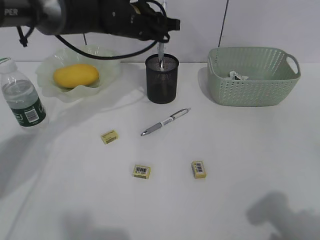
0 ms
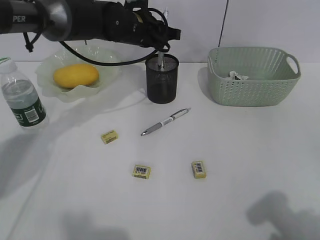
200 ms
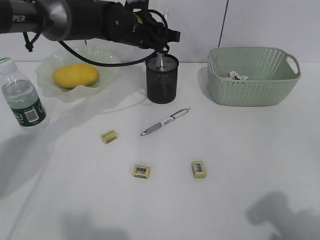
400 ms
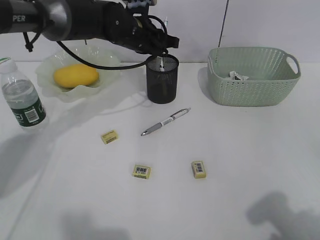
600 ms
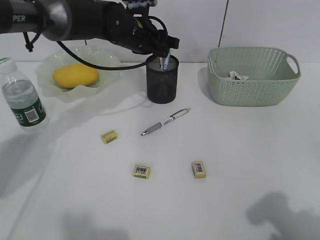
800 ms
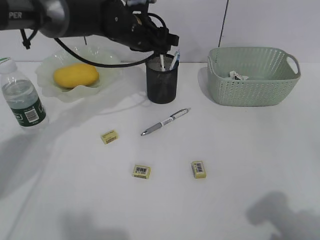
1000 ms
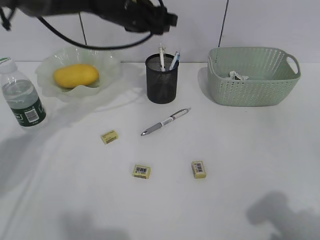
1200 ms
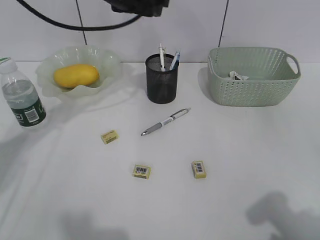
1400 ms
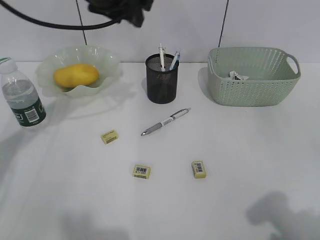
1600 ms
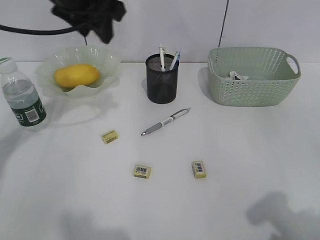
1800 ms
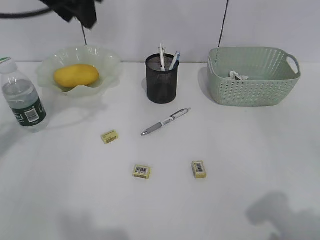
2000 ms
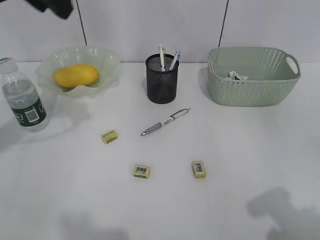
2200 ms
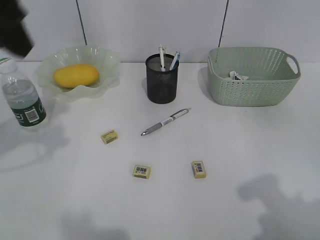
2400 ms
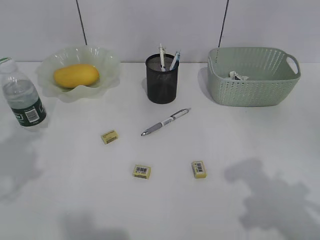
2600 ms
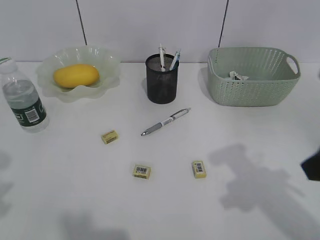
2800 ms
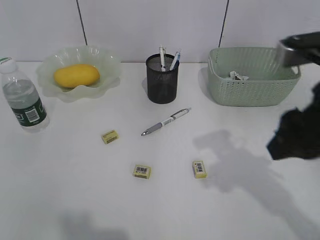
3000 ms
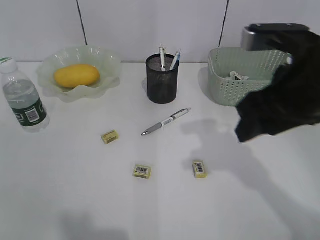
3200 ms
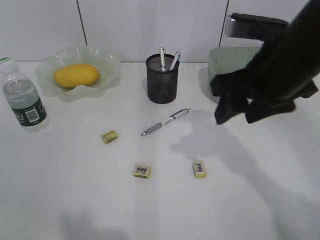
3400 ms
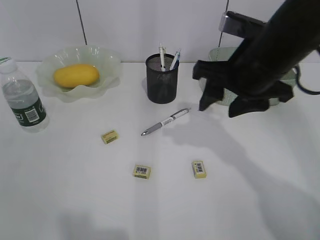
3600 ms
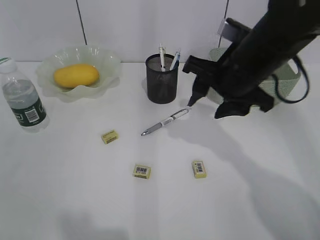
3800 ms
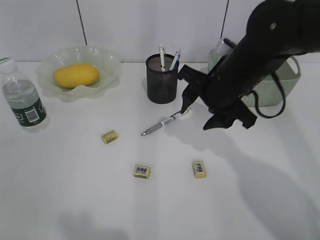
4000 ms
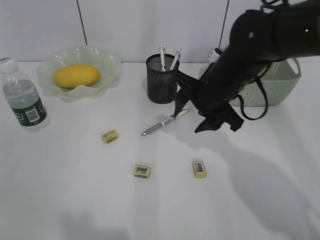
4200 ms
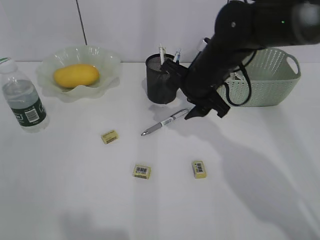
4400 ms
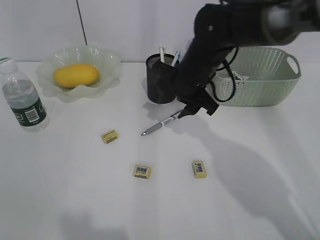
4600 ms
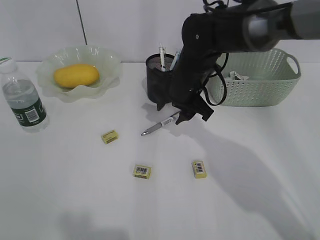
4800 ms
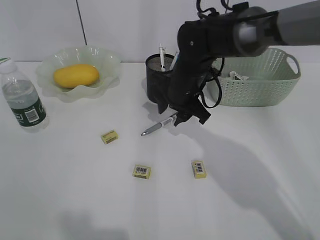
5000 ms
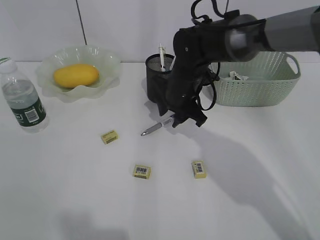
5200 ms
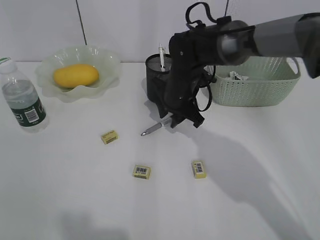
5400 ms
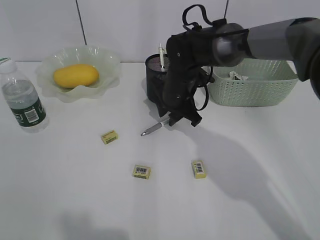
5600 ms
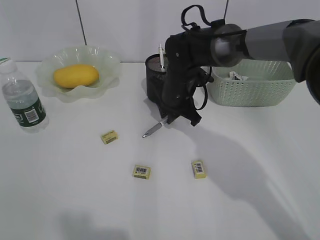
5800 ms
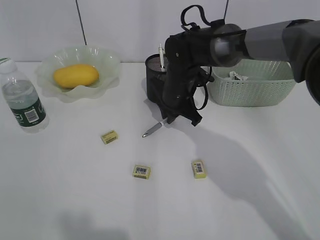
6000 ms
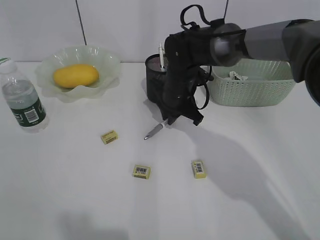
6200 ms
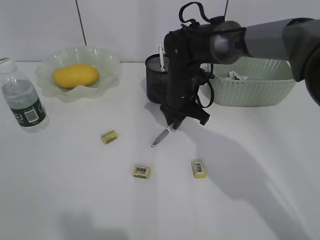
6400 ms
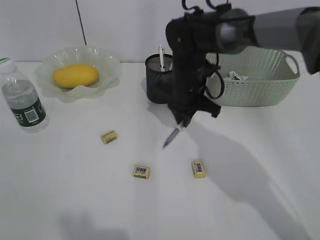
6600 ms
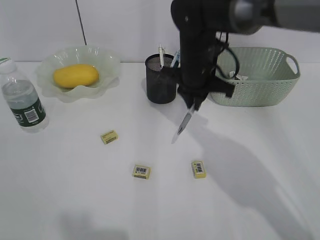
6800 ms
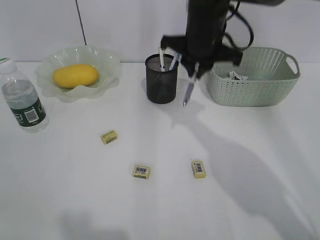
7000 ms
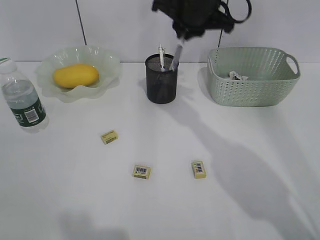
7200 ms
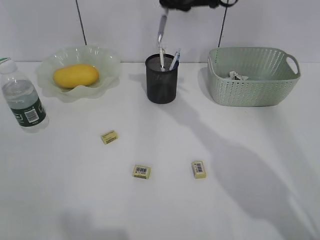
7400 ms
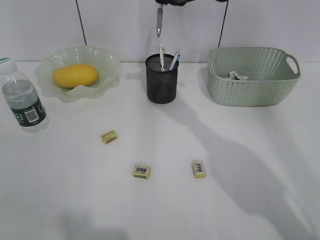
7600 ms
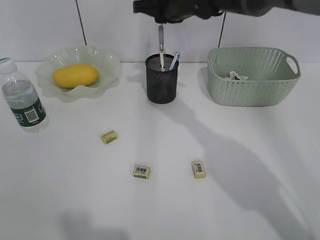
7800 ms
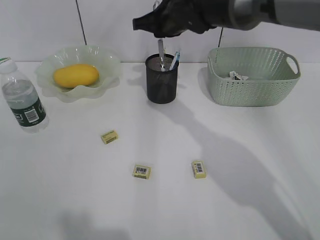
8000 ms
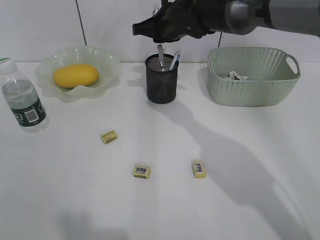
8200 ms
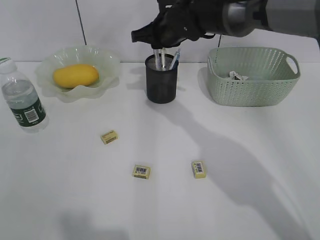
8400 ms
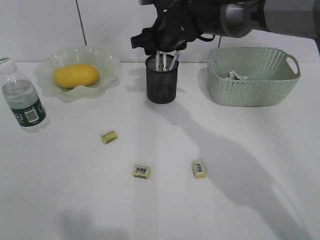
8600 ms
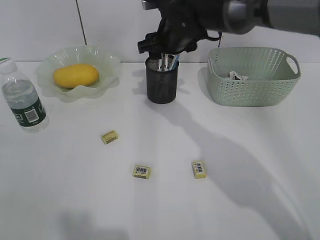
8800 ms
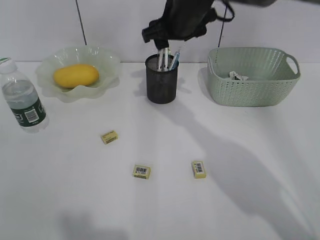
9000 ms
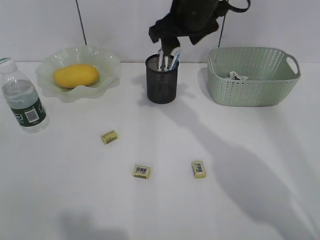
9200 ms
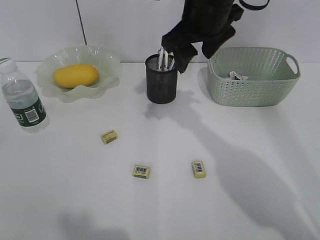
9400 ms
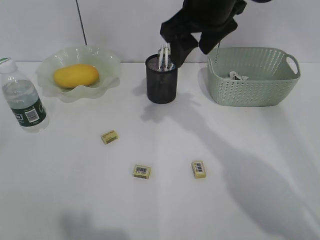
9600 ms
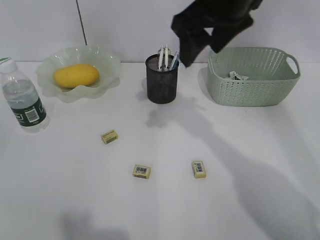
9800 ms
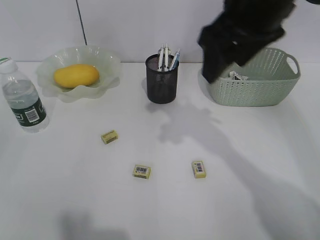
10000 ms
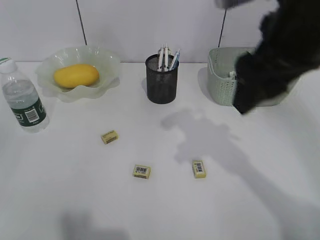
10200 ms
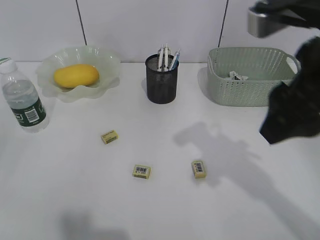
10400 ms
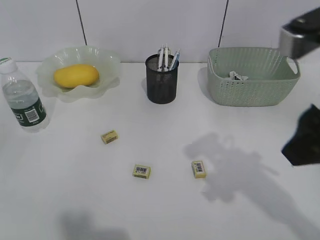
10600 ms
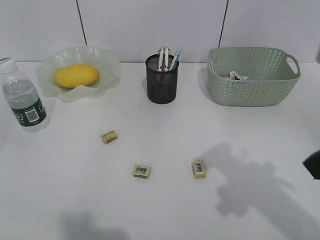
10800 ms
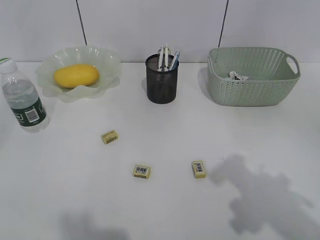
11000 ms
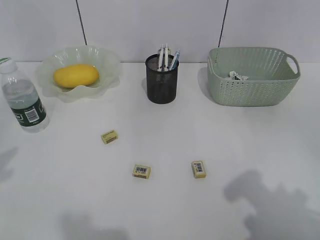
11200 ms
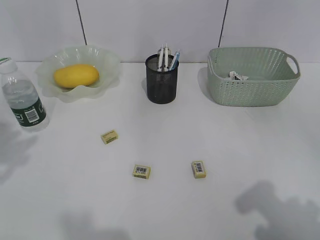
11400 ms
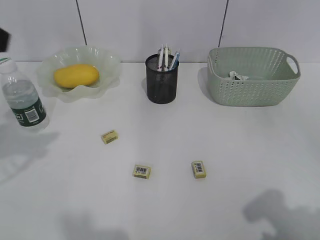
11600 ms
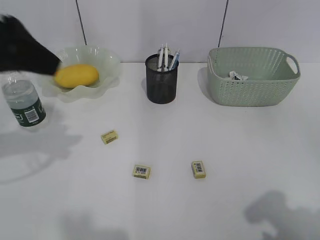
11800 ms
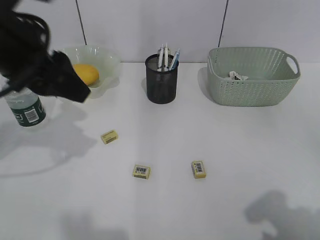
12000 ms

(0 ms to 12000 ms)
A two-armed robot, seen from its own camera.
Step, 1200 ms - 5800 ms: Grasp the gray pen with right gripper.
Step, 6000 ms - 8800 ms: Place the gray pen in pen holder with right gripper.
0 ms - 1600 ms: The left gripper shifts some 10 cm upward and backward, and opens its fingers.
1600 ms - 3000 ms: The left gripper goes some 40 cm backward and to the left, while the right gripper is displaced forward and to the left by some 15 cm.
3000 ms - 4400 ms: The left gripper shifts by about 5 cm. Meanwhile the right gripper shifts roughly 25 cm forward, to the left and downward.
4400 ms - 6000 ms: The right gripper travels downward by approximately 5 cm, and closes.
6000 ms - 7600 ms: The right gripper travels upward by approximately 20 cm.
7600 ms - 9000 ms: The right gripper reaches some 10 cm downward, then returns, and opens up.
9000 ms - 10400 ms: The right gripper shifts some 25 cm backward and to the right.
10400 ms - 12000 ms: The right gripper shifts some 20 cm backward and to the right. Meanwhile the left gripper travels forward and to the right by approximately 30 cm.

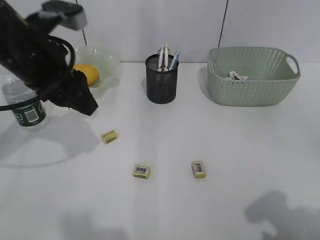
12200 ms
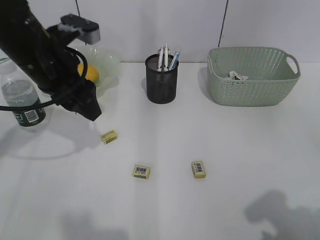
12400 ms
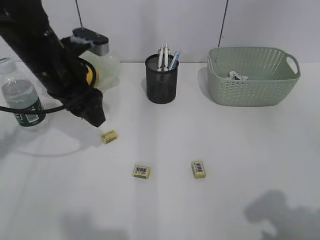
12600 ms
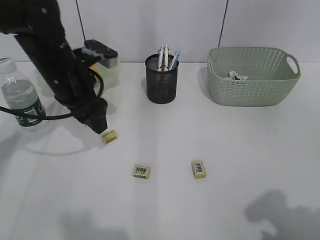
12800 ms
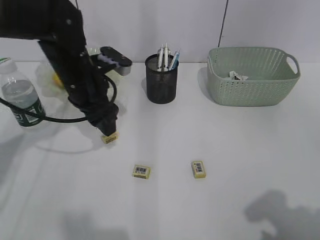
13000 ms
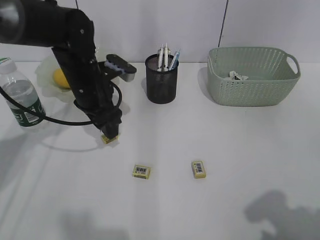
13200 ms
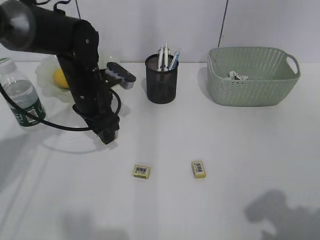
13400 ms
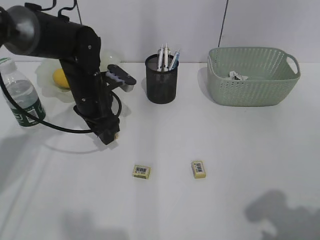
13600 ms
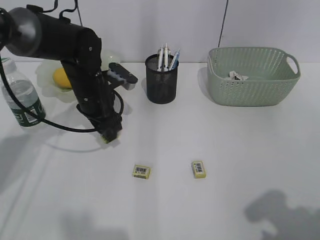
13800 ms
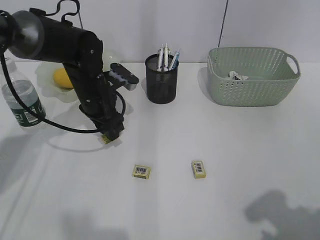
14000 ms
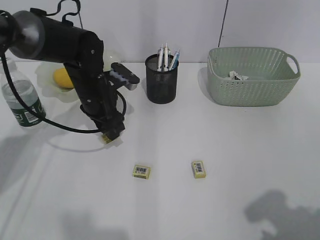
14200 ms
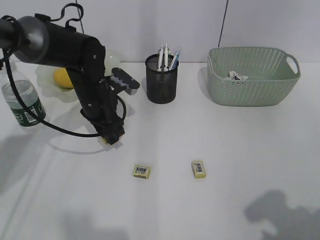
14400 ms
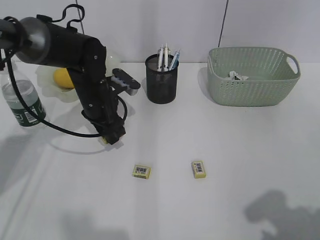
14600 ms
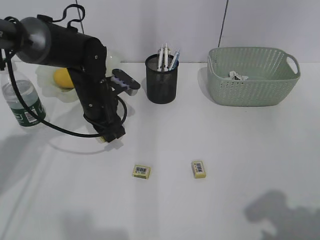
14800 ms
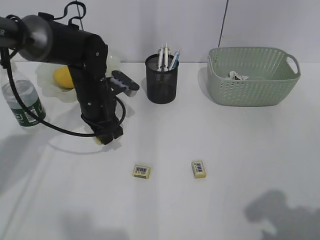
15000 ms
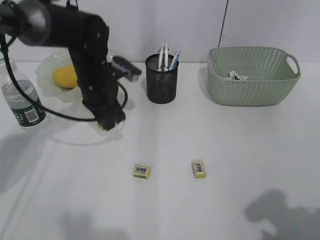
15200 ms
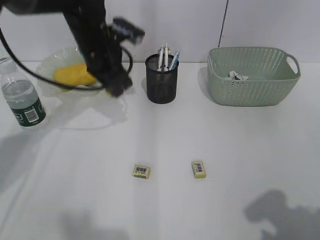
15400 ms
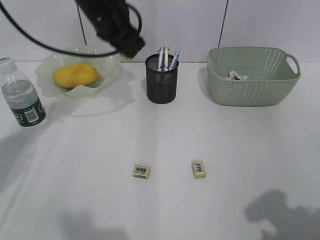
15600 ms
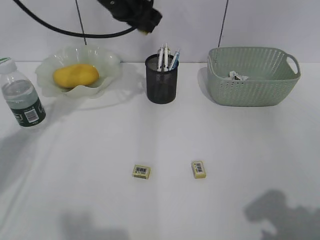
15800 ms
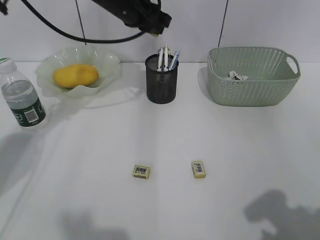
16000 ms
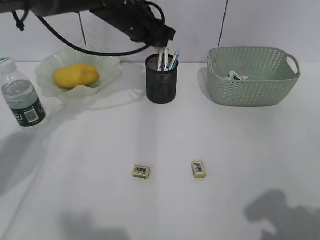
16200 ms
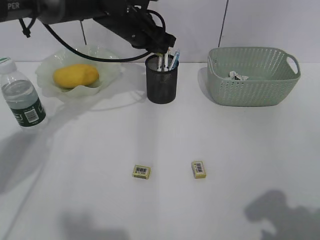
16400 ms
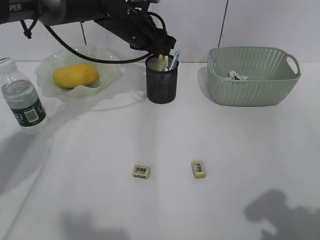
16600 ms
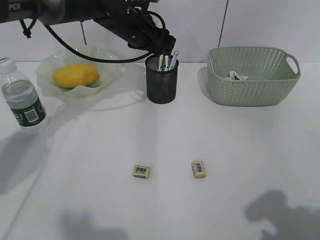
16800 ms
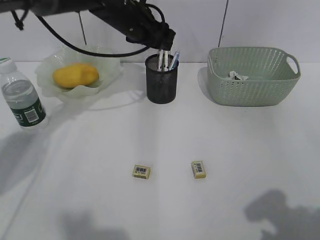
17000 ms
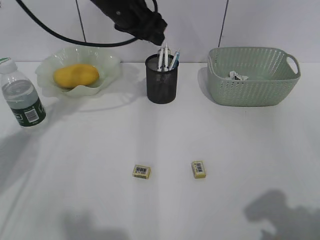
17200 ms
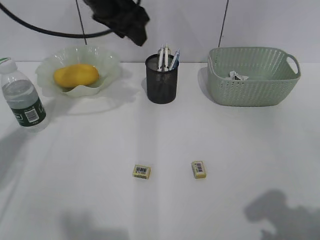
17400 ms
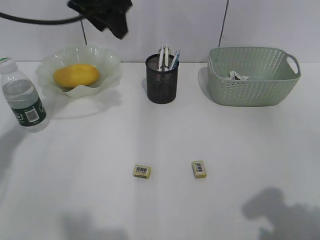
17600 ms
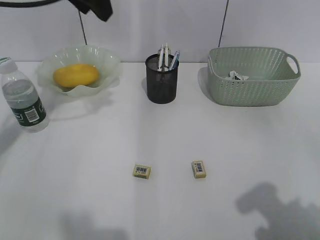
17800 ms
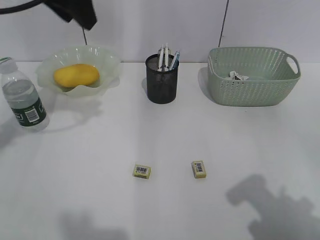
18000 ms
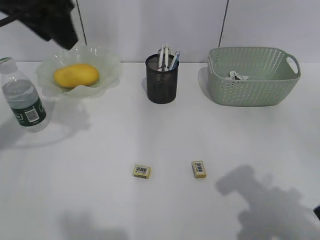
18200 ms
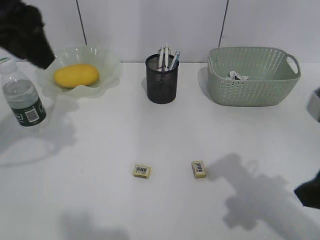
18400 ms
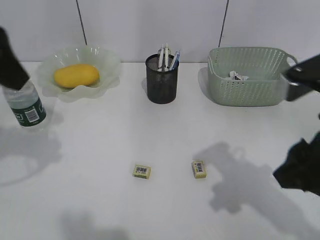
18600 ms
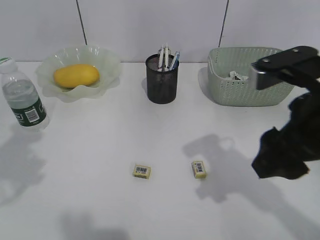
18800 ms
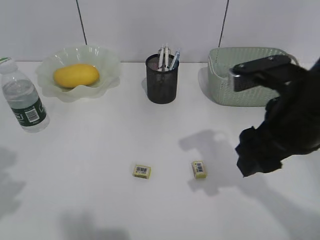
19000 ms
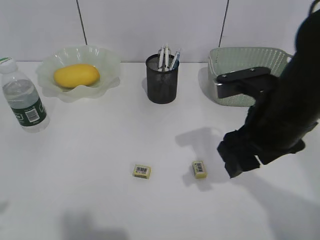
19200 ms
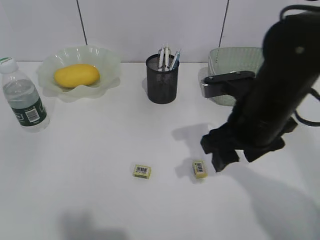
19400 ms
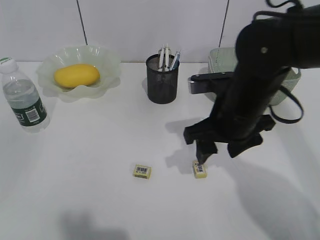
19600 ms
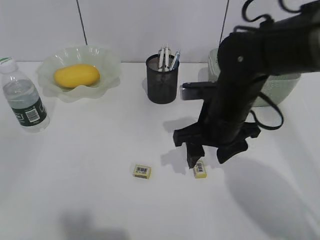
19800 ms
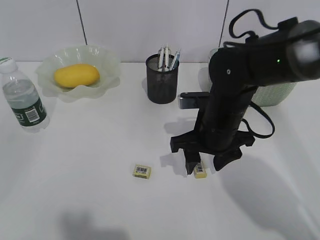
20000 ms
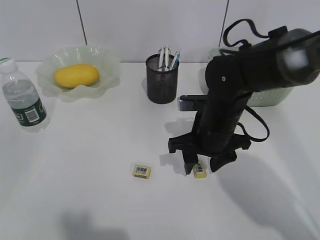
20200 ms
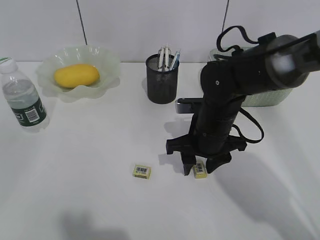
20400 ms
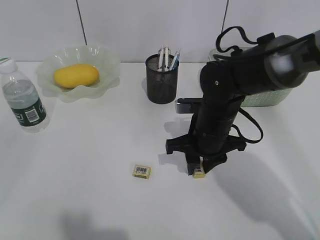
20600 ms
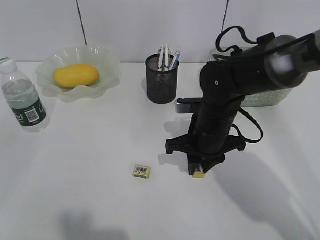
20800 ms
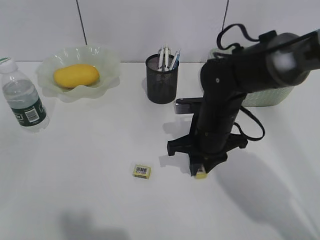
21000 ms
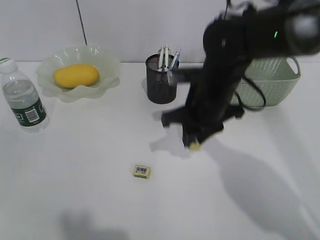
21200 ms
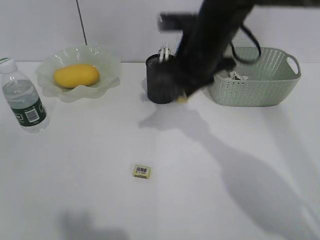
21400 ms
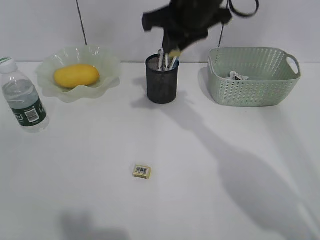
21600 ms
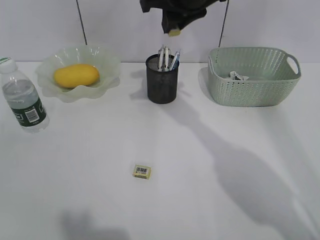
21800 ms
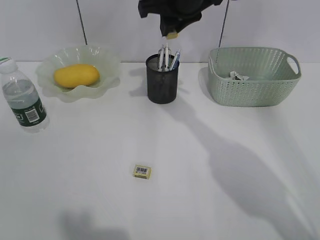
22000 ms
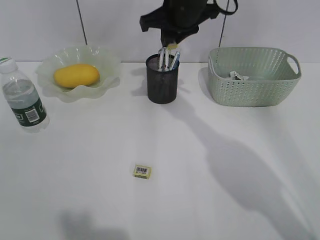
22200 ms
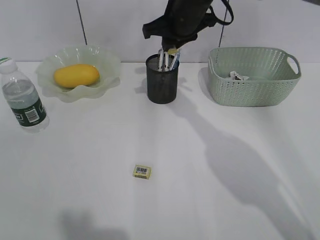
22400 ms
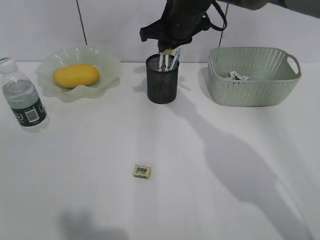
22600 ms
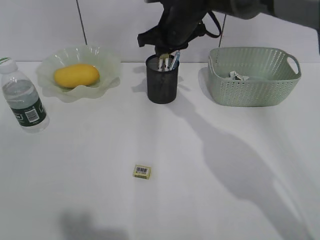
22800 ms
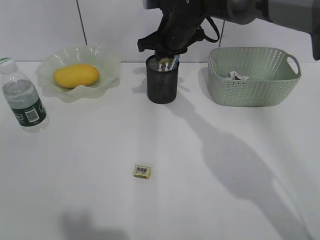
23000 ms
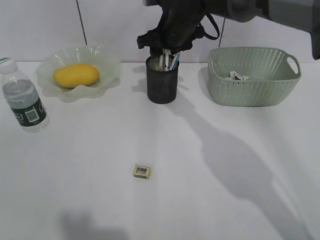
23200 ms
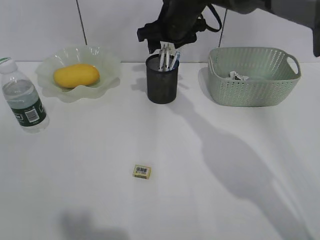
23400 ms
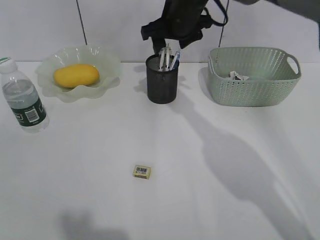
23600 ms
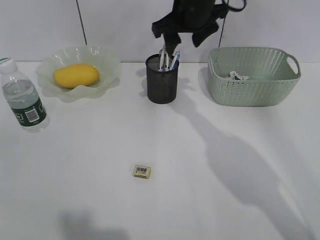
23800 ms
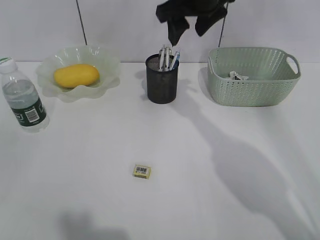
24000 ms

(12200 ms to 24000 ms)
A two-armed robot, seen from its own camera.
Step, 12200 ms - 14800 ms: Grasp the eraser with left gripper.
Step, 15000 ms - 16600 ms: Place the eraser in pen holder with left gripper.
Step, 16800 ms - 20800 ms: Grasp the eraser with right gripper.
Step, 21000 ms - 23400 ms: Place the eraser in pen holder with right gripper.
12200 ms - 13600 ms: The left gripper shifts about 15 cm downward and forward.
13600 ms - 15200 ms: The left gripper closes.
15200 ms - 16600 ms: The left gripper heads forward, to the right and upward, covering approximately 10 cm.
16600 ms - 18200 ms: The right gripper heads forward, covering approximately 5 cm; the left gripper shifts roughly 25 cm backward, upward and to the left.
18200 ms - 19600 ms: The right gripper shifts about 20 cm forward, to the left and downward, while the left gripper is displaced backward and to the left by approximately 30 cm.
19600 ms - 21000 ms: The right gripper moves downward, about 5 cm, and closes its fingers.
21000 ms - 22600 ms: The right gripper travels forward and upward by roughly 20 cm.
22600 ms - 24000 ms: The right gripper goes approximately 10 cm upward, and opens up.
